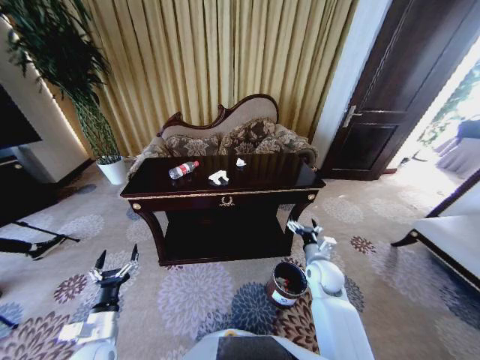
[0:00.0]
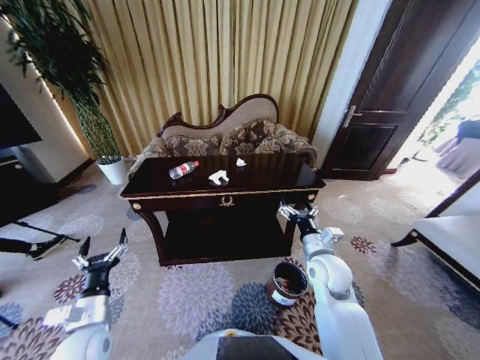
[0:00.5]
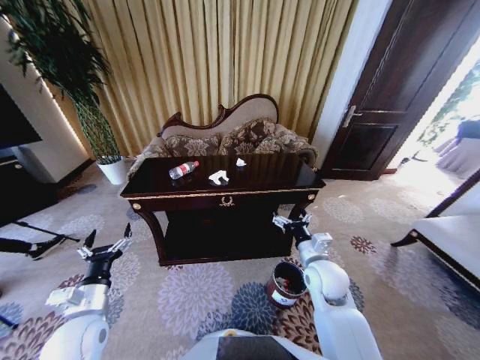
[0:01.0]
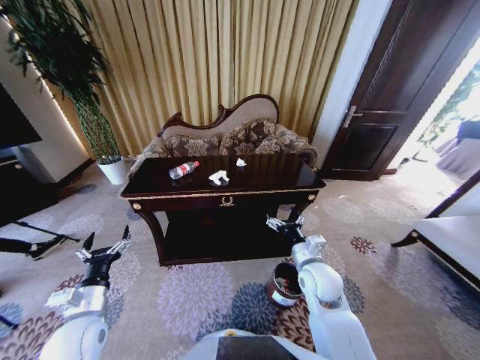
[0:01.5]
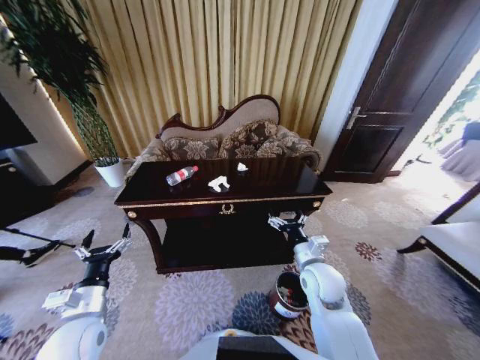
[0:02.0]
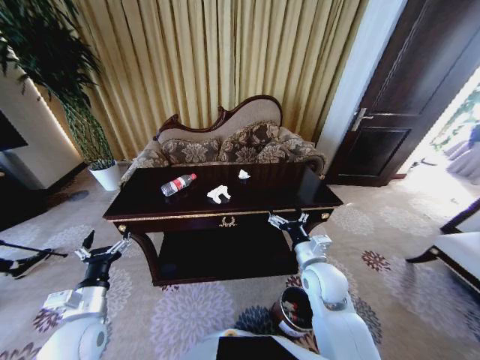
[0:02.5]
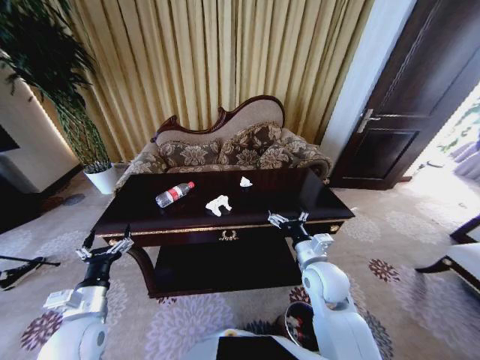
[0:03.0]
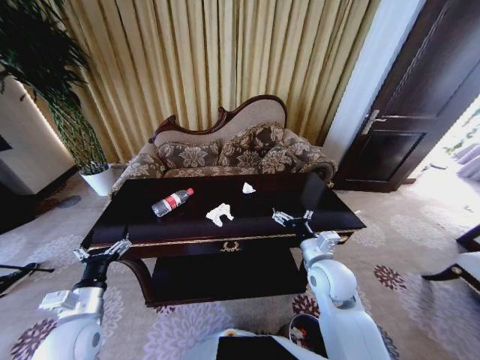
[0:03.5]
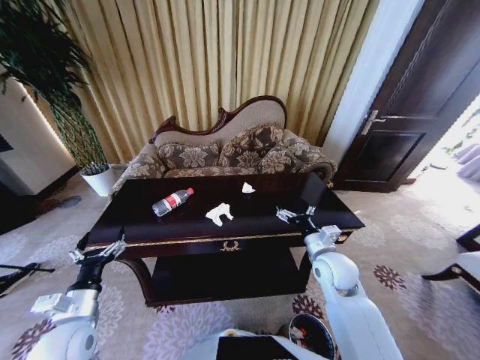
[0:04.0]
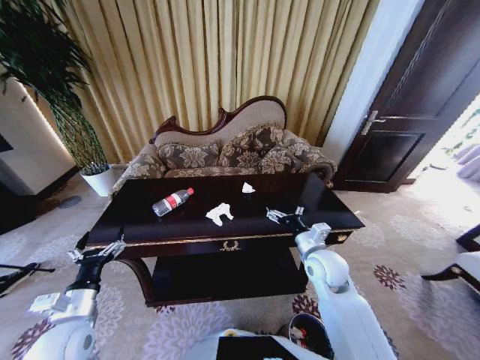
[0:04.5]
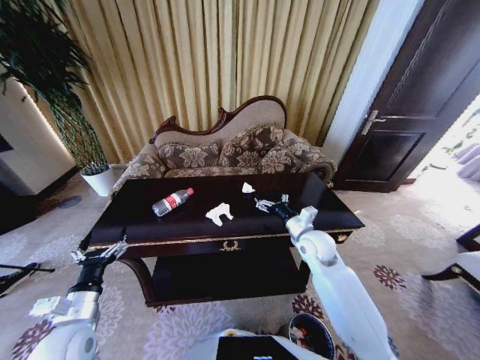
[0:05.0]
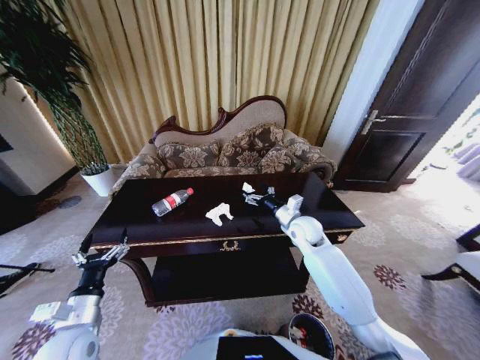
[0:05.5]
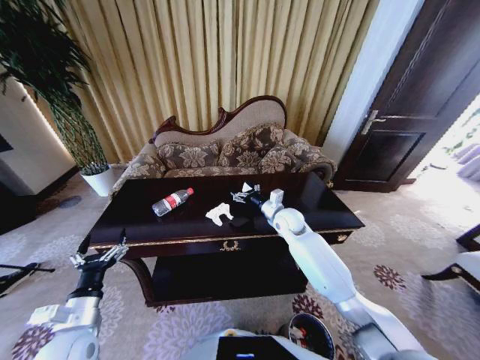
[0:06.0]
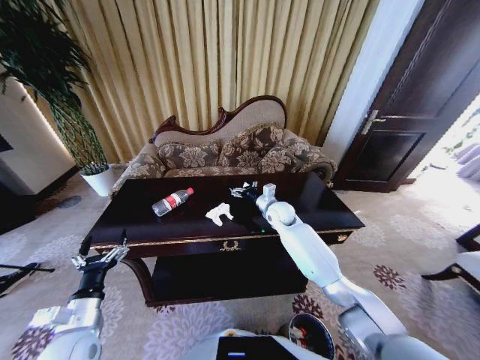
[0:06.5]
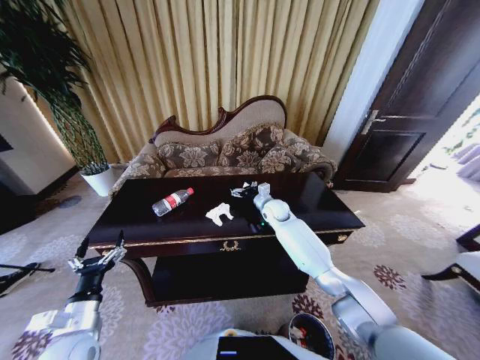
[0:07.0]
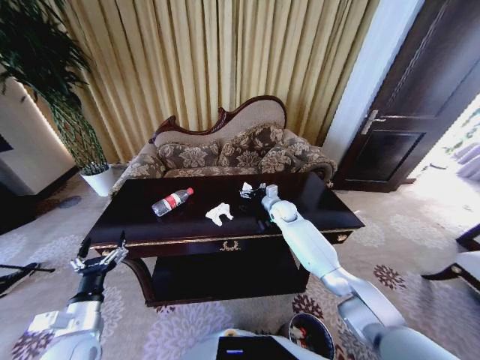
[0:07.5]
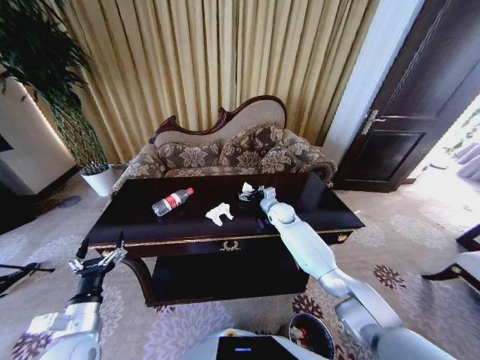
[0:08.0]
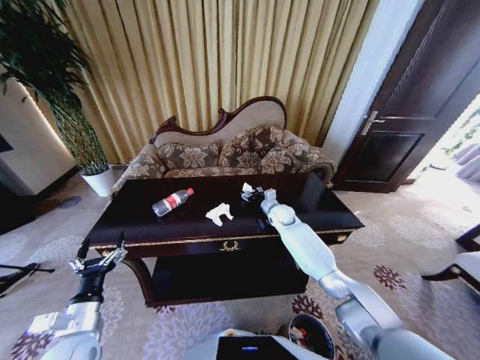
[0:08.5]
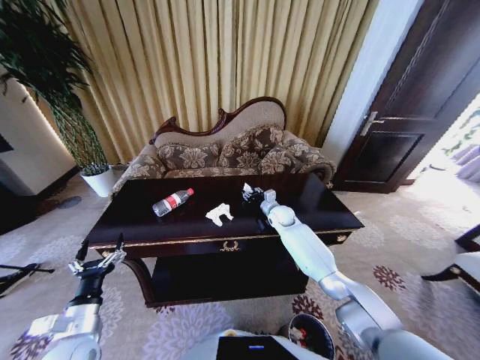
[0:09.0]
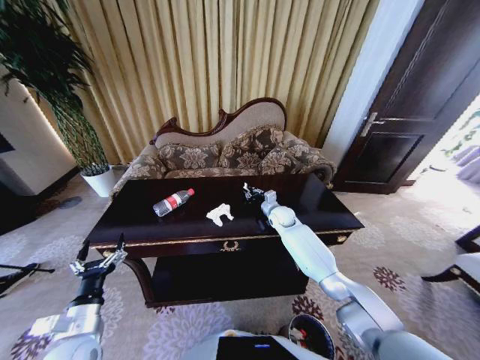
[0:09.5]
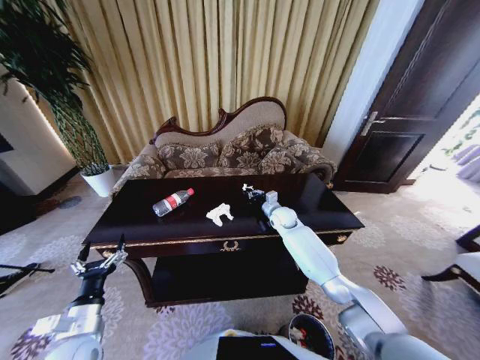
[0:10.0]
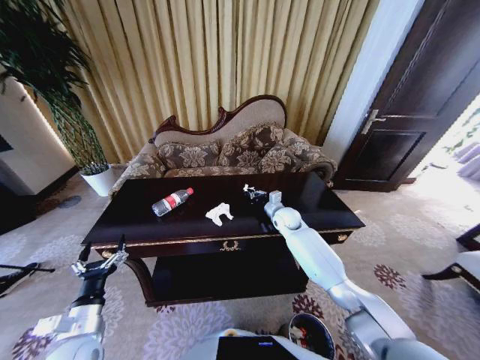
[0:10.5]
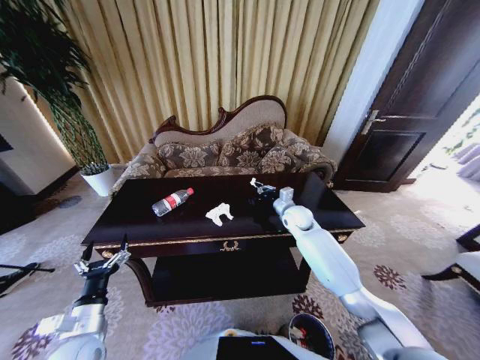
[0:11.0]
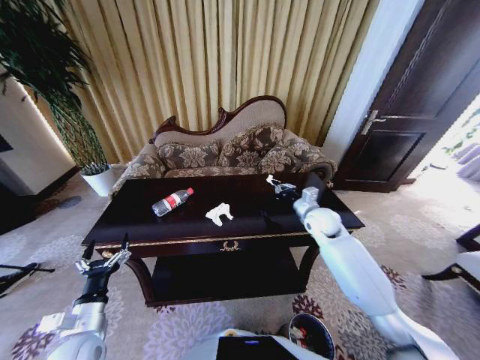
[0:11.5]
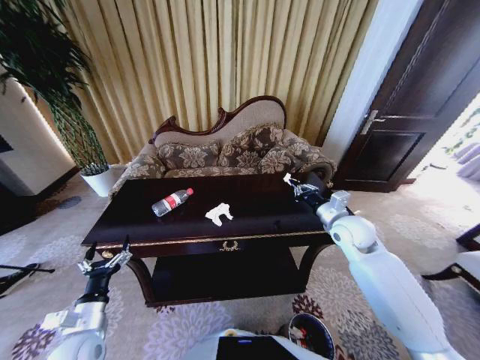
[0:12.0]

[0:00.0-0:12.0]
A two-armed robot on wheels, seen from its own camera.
Task of the whole recording: Move to the front of the table and place the trash on the table into the trash bin.
0.0 to 2.0 s: The right gripper moves upward and to the left, approximately 10 cm, while the left gripper heads upward, covering some 10 cm.
4.0 to 6.0 s: The right gripper goes about 20 cm forward and to the left.
6.0 to 8.0 s: The right gripper is displaced forward by some 5 cm.
8.0 to 10.0 s: The right gripper closes up.
10.0 to 12.0 s: The right gripper moves backward, upward and to the right, some 25 cm.

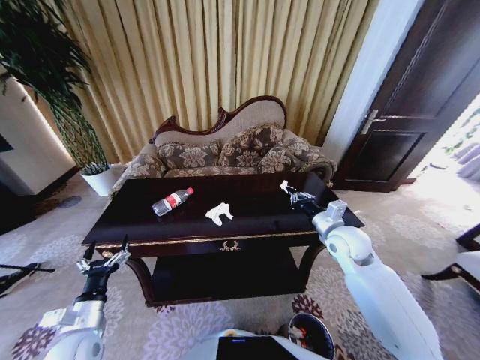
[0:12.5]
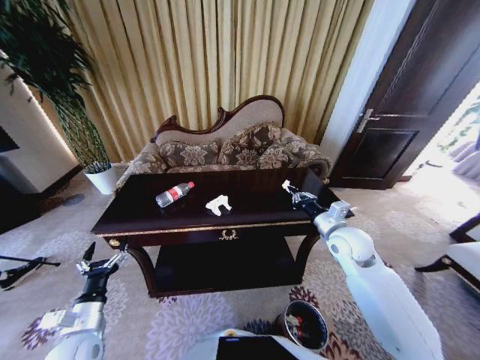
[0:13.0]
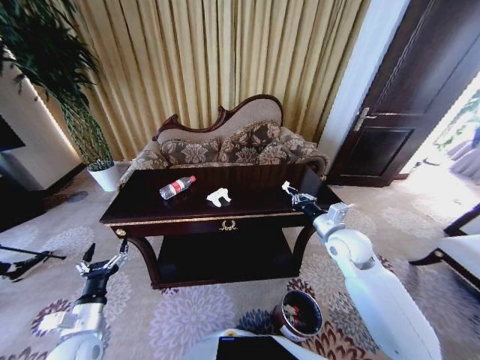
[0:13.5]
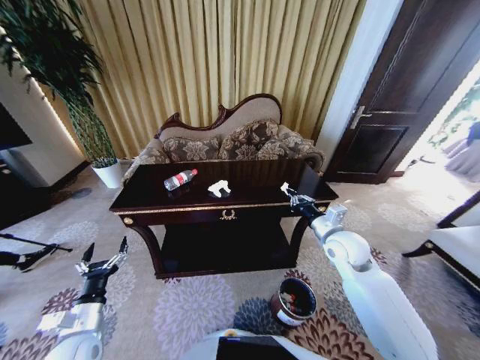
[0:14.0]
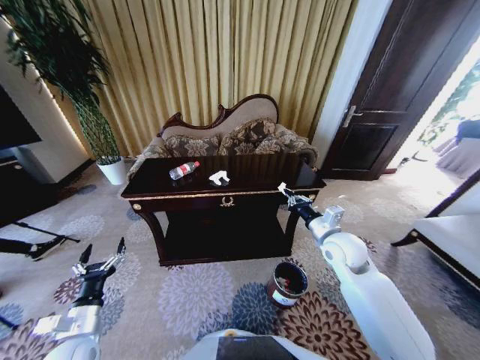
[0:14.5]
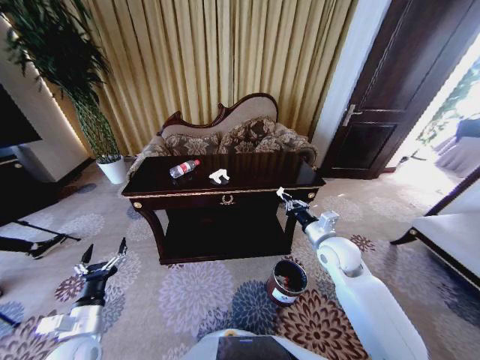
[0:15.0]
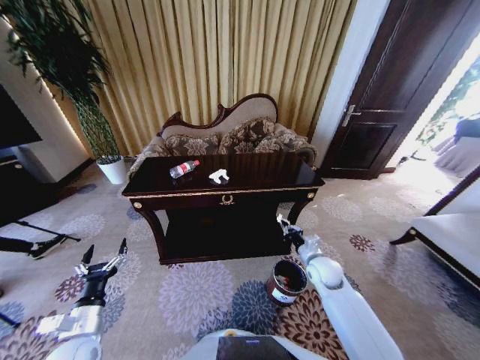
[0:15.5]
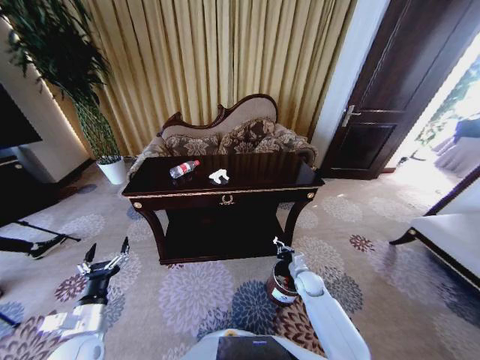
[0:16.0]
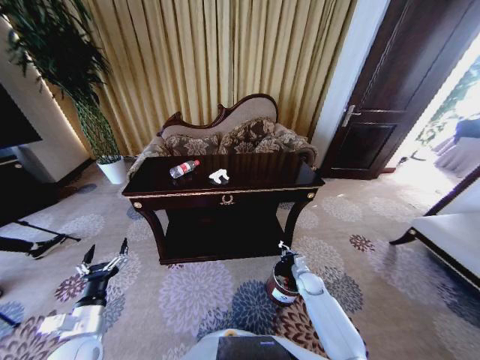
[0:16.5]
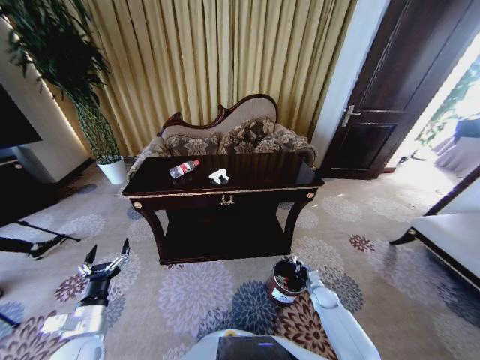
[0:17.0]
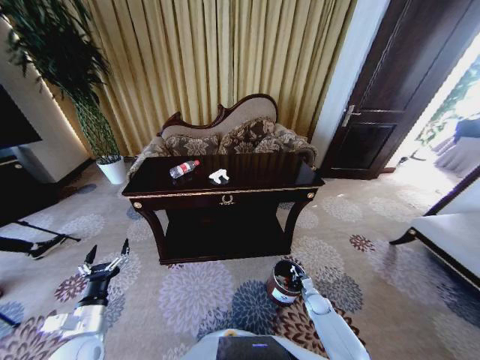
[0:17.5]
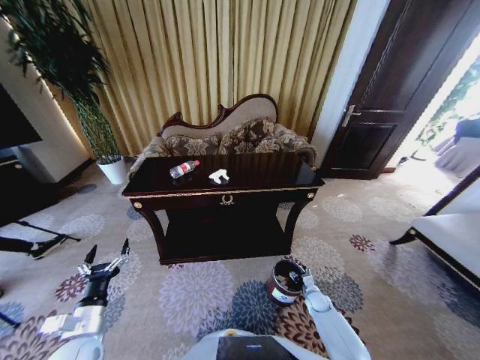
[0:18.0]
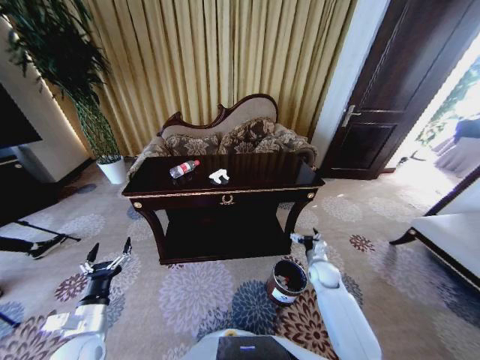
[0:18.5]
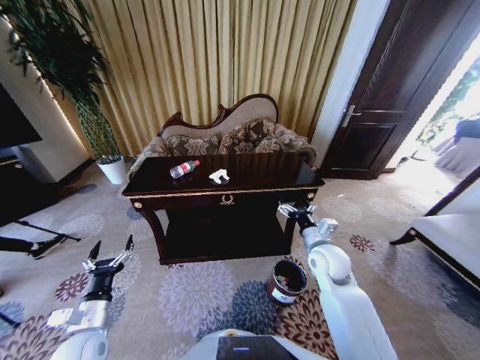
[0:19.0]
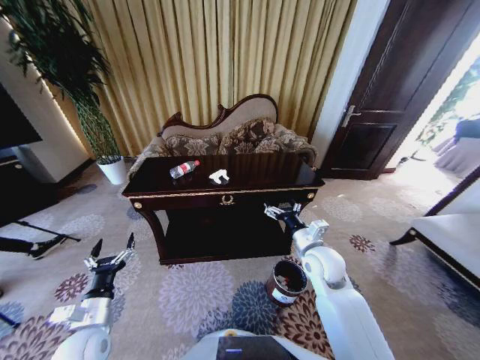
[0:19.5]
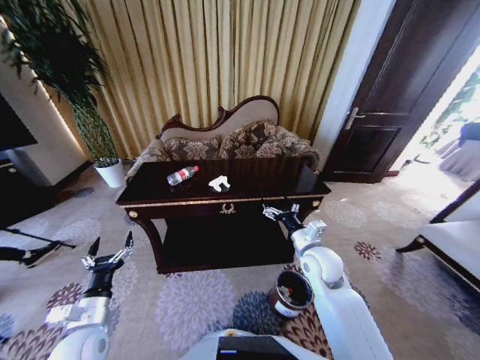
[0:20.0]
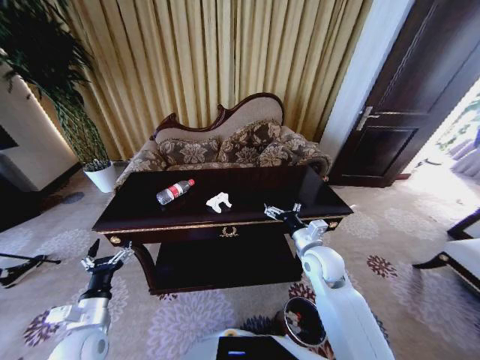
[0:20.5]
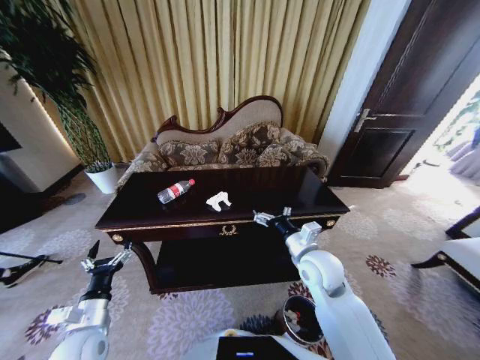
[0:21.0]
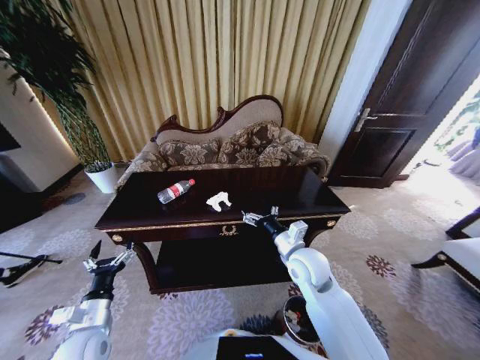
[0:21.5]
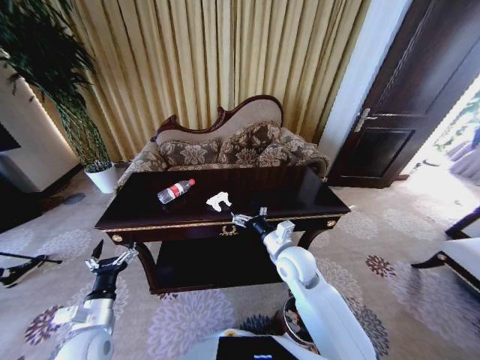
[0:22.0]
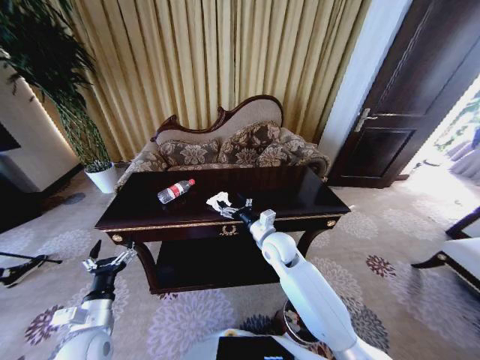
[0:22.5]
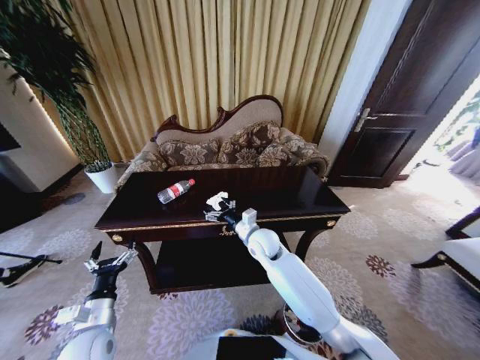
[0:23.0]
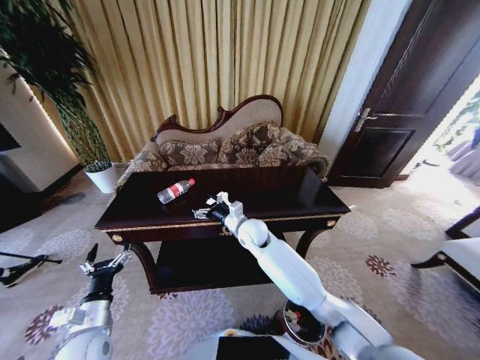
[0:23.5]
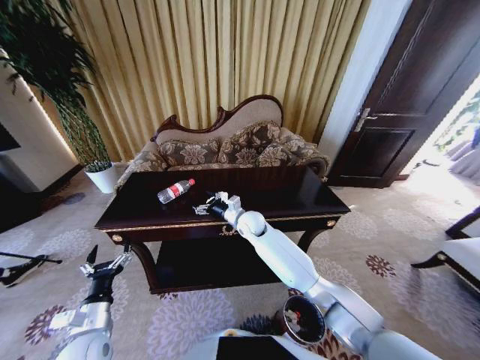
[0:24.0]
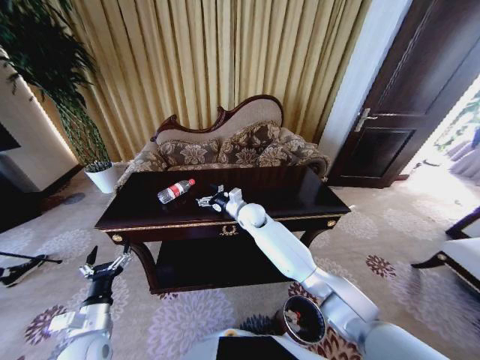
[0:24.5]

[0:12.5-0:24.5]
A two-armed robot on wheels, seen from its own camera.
Task of the whole recording: Move to the front of the table and place the trash on the table into the trash bin.
14.5 to 16.5 s: The right gripper heads downward, covering about 30 cm.
16.5 to 18.5 s: The right gripper shifts approximately 10 cm upward, and opens up.
18.5 to 20.5 s: The right gripper shifts some 20 cm upward and to the left.
20.5 to 22.5 s: The right gripper is displaced to the left and forward by approximately 10 cm.
22.5 to 24.5 s: The right gripper is displaced forward and to the left by roughly 15 cm.

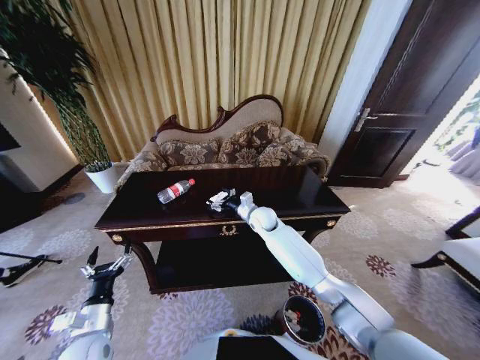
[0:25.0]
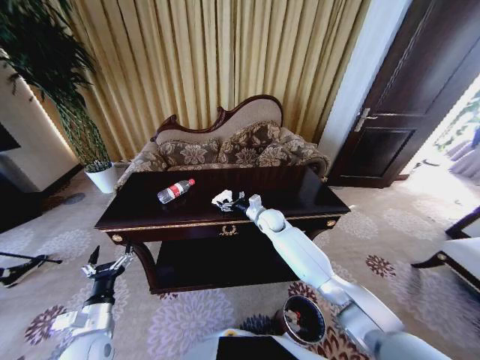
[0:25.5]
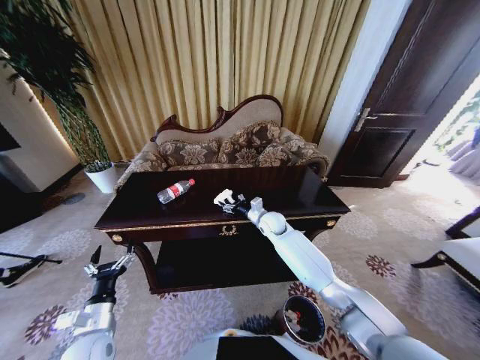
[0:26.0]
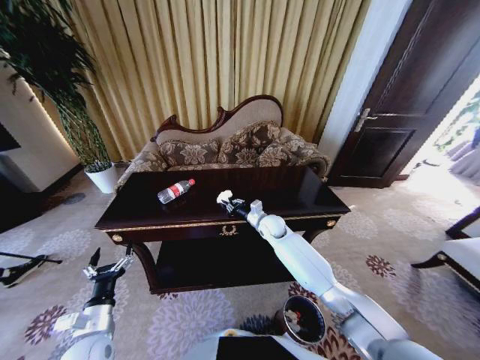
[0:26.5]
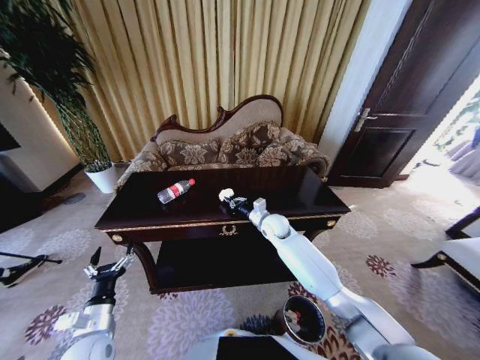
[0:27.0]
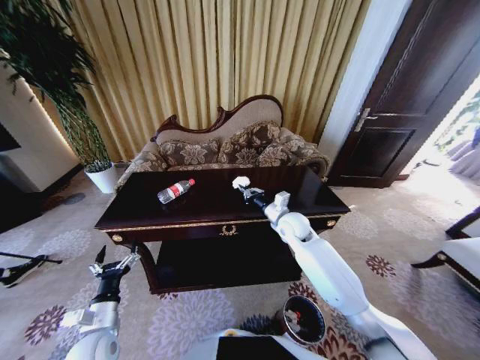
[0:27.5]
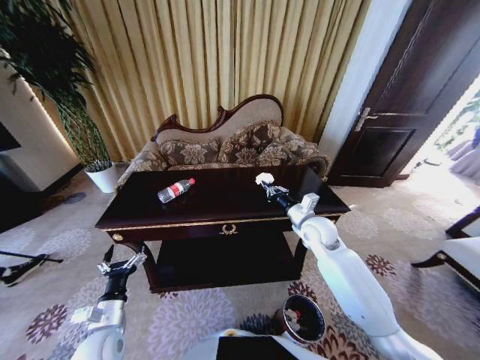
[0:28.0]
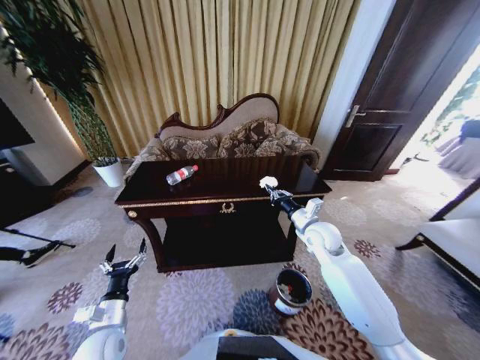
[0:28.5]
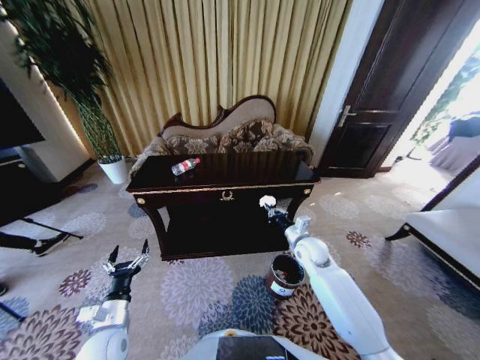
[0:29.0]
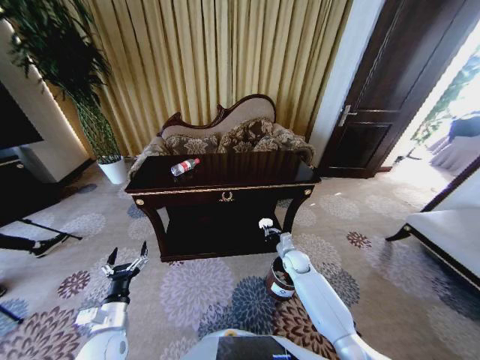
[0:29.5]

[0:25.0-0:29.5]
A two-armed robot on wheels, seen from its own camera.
Task of the whole recording: Move to the front of the table and place the trash on the table into the trash bin.
25.0 to 27.0 s: The right gripper changes place by some 5 cm, and closes its fingers.
27.0 to 29.5 s: The right gripper heads downward, to the right and backward, covering roughly 20 cm.
